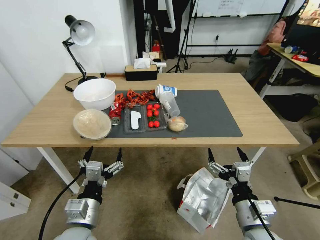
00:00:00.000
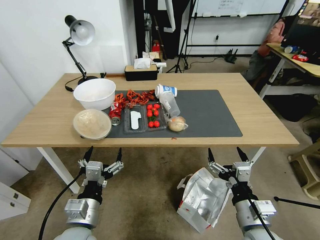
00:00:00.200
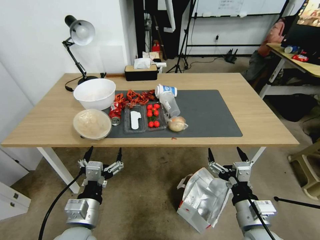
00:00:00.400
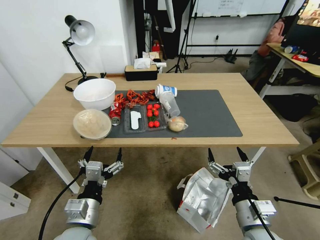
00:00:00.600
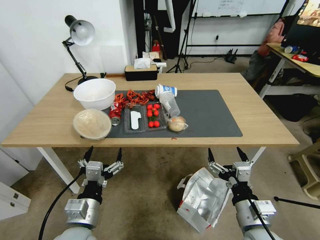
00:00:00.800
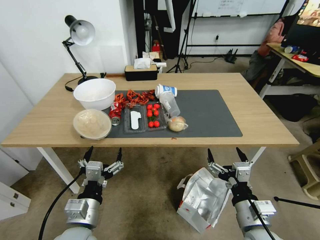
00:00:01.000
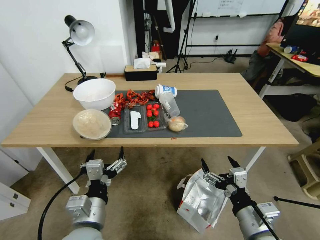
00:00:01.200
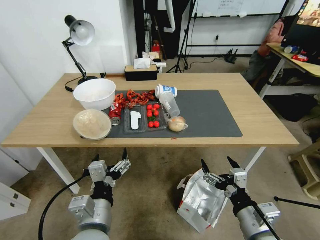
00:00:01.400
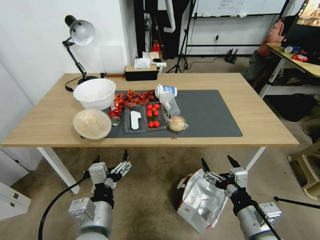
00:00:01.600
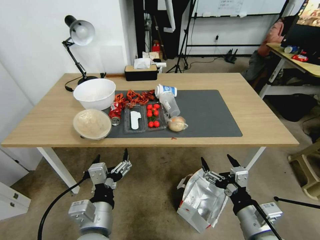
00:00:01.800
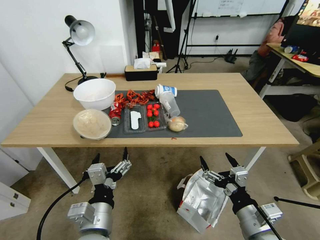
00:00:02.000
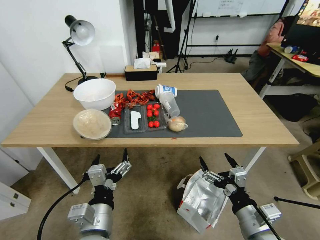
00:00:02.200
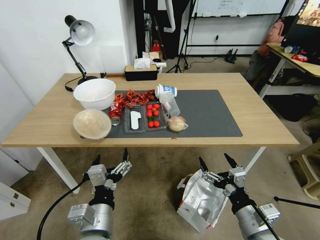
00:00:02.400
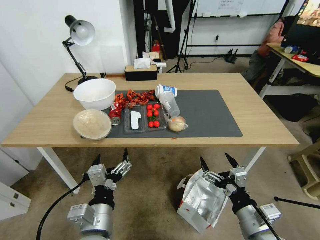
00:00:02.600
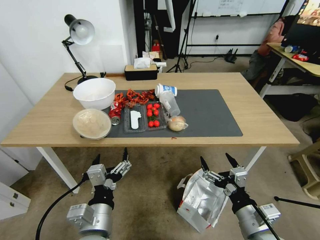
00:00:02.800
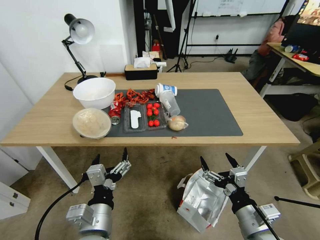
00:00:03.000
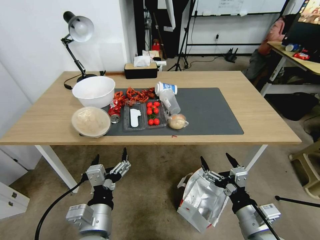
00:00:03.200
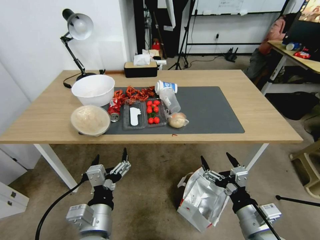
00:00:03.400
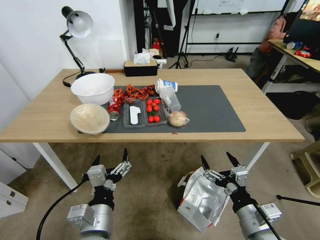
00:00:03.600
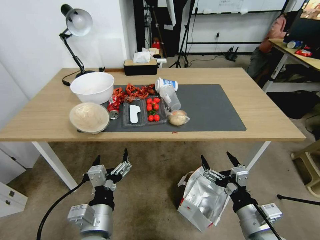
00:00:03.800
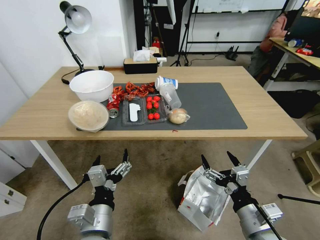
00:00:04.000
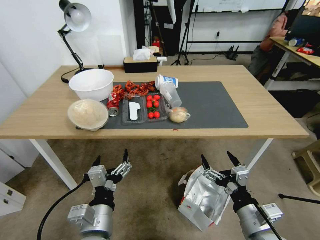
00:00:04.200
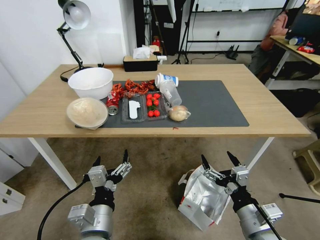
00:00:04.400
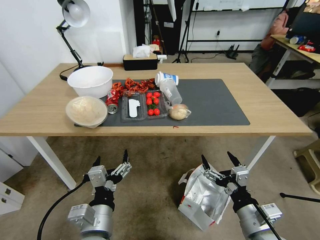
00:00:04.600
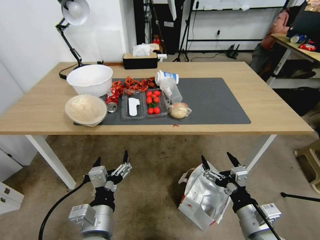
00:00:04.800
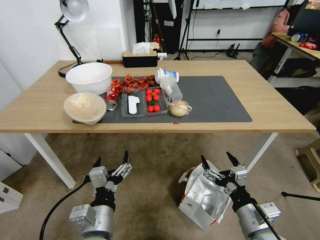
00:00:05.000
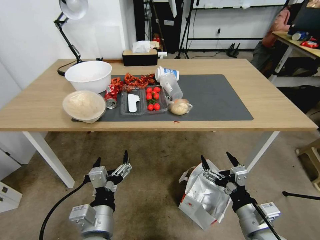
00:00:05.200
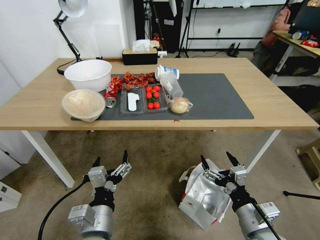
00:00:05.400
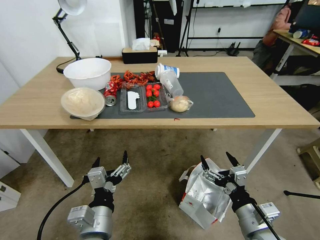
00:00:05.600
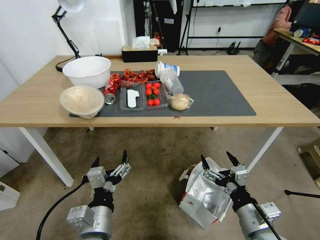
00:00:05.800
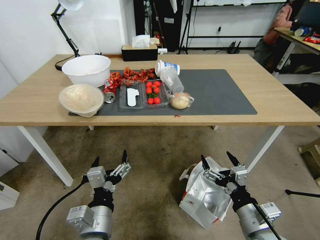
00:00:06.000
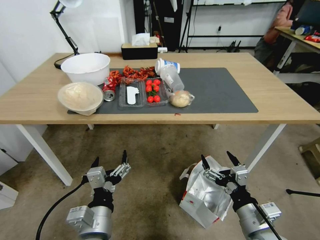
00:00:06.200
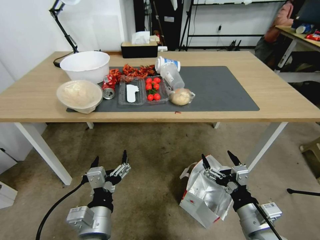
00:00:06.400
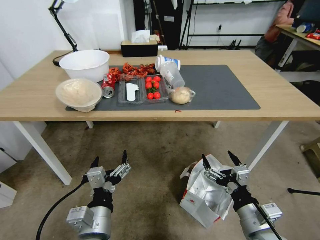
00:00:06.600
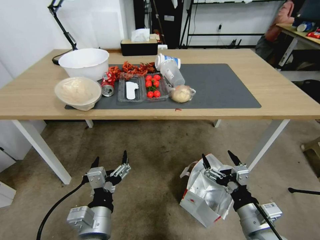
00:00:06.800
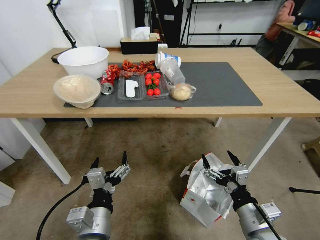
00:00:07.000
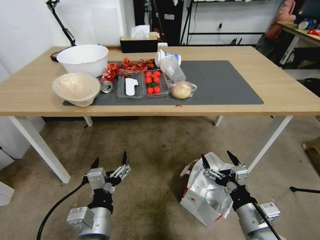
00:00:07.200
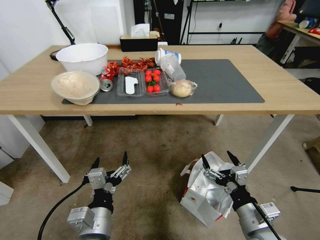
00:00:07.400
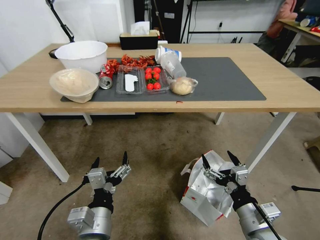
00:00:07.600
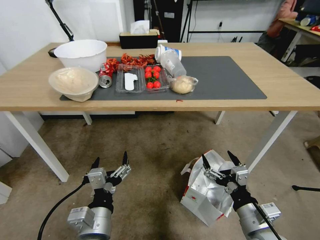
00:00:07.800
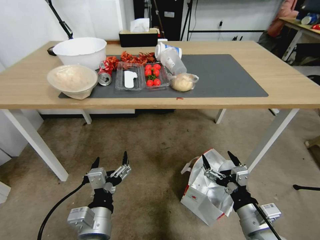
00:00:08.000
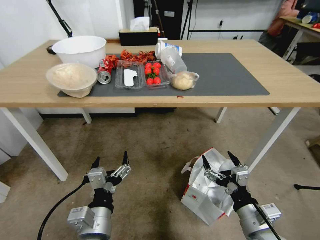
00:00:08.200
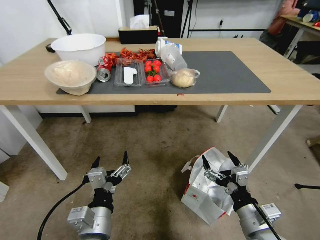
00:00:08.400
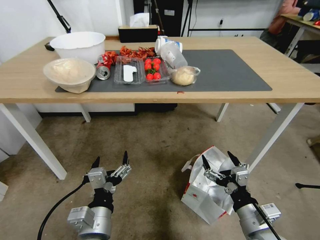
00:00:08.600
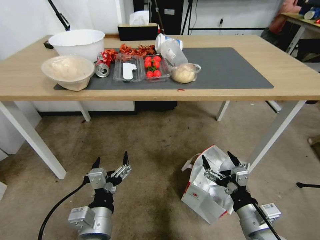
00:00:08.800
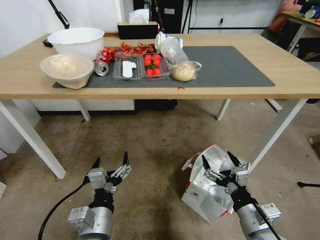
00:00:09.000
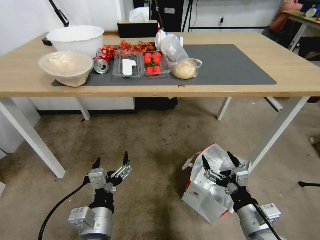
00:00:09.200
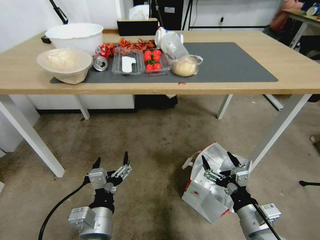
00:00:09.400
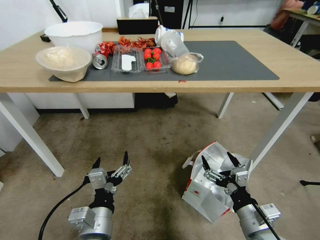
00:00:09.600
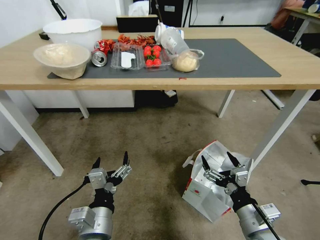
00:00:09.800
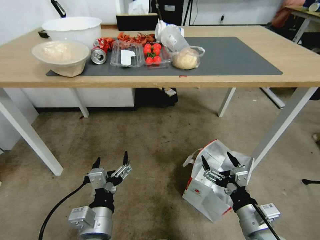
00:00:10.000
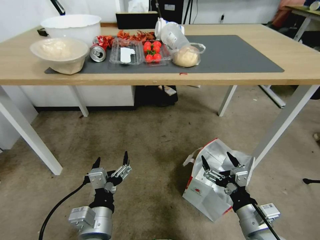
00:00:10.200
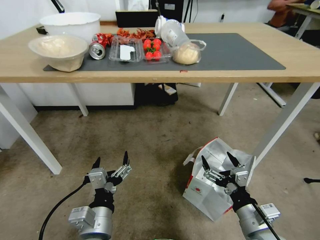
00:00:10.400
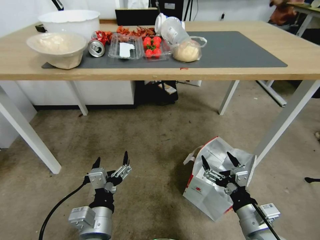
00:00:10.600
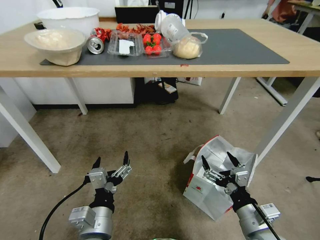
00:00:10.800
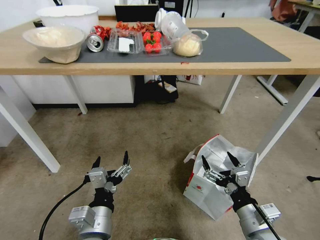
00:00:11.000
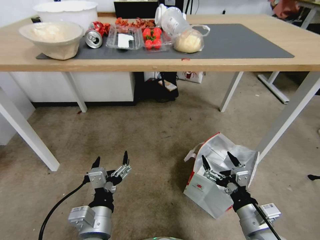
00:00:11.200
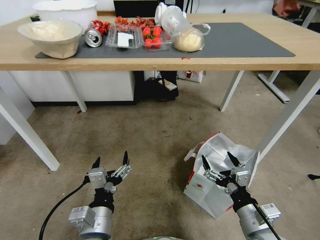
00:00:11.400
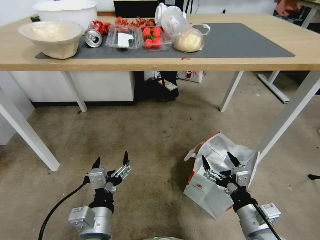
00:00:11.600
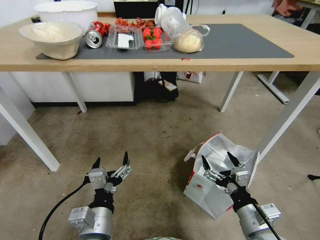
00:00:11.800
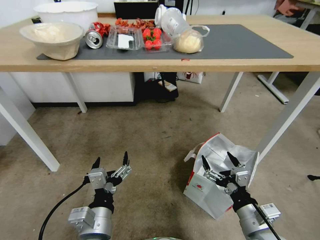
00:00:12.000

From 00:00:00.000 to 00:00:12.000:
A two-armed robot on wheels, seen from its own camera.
Task of the whole recording: Pick up the food delivery bag from the floor and place it on the table.
From 00:00:01.600 to 00:00:03.000: The grippers move only a little.

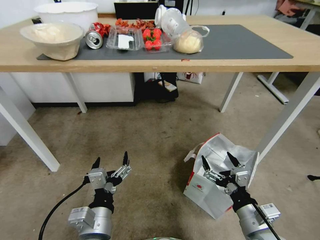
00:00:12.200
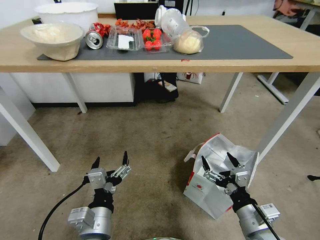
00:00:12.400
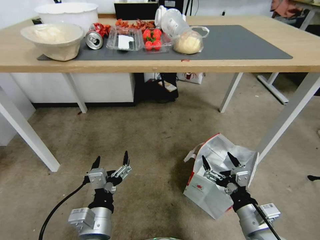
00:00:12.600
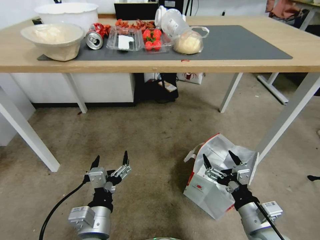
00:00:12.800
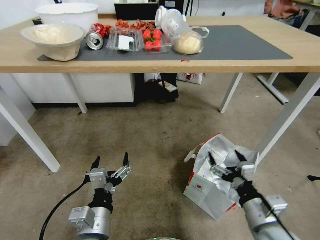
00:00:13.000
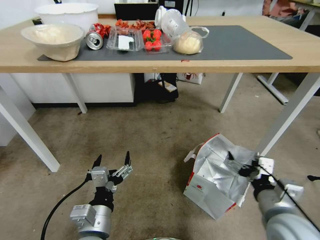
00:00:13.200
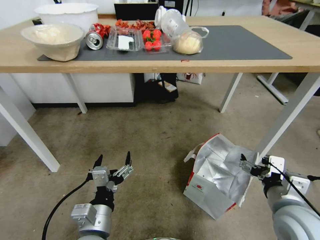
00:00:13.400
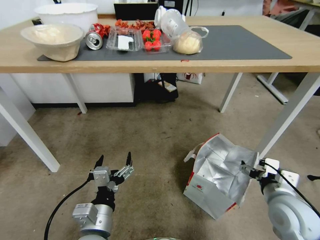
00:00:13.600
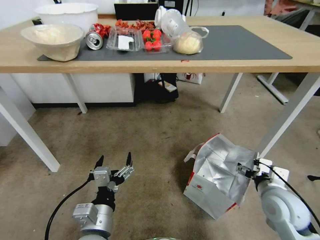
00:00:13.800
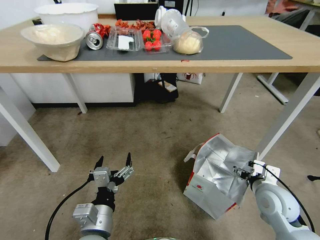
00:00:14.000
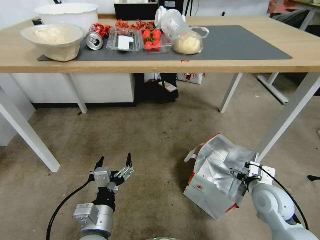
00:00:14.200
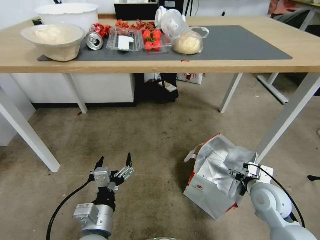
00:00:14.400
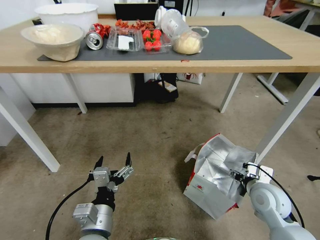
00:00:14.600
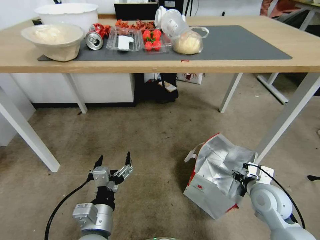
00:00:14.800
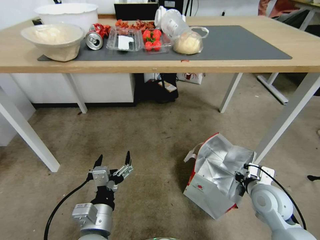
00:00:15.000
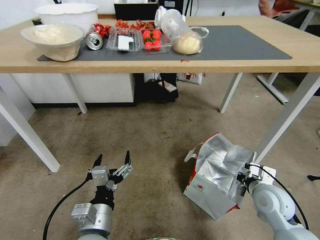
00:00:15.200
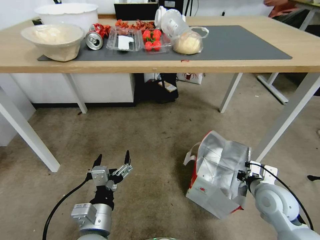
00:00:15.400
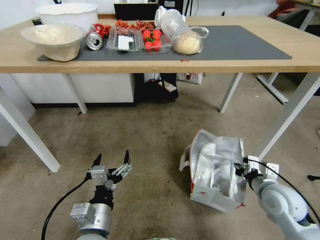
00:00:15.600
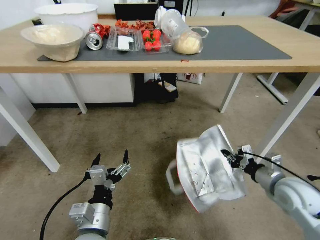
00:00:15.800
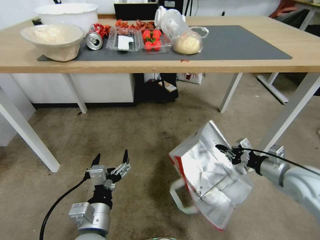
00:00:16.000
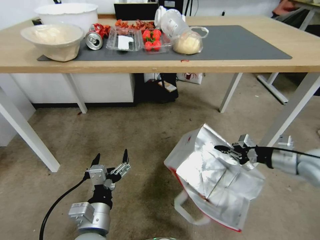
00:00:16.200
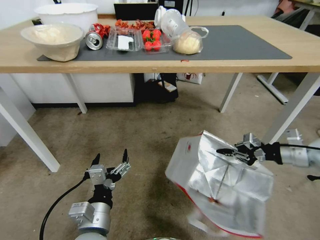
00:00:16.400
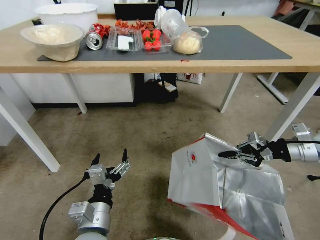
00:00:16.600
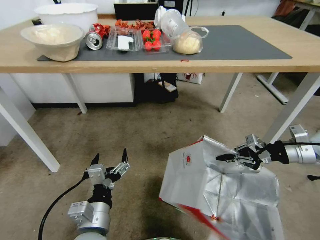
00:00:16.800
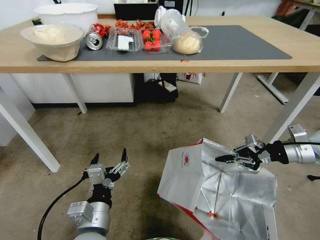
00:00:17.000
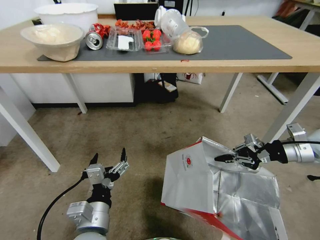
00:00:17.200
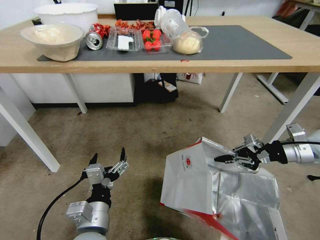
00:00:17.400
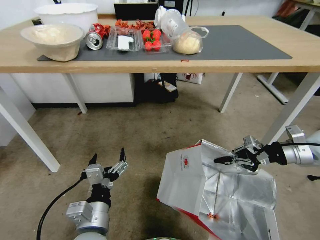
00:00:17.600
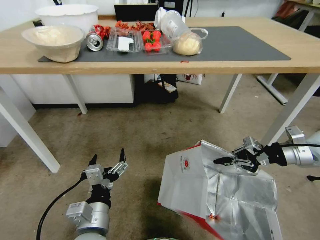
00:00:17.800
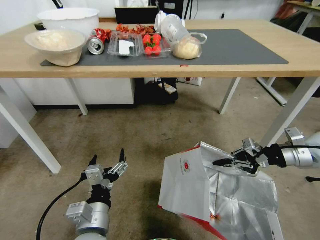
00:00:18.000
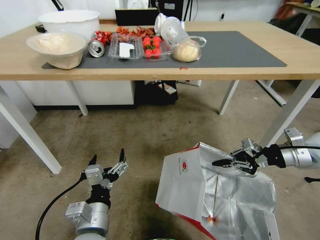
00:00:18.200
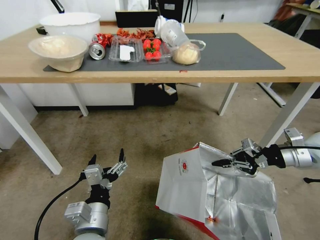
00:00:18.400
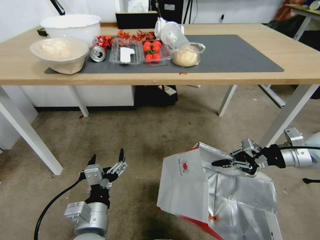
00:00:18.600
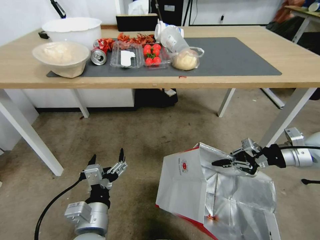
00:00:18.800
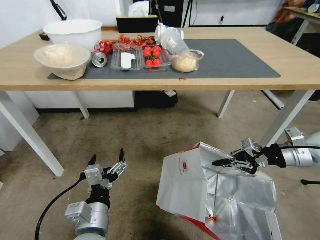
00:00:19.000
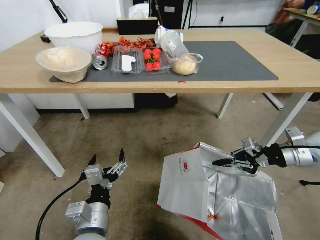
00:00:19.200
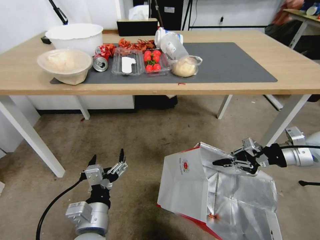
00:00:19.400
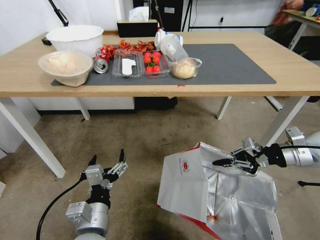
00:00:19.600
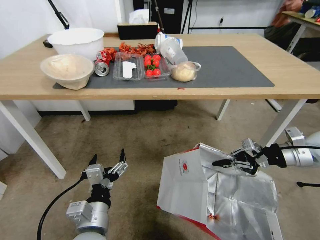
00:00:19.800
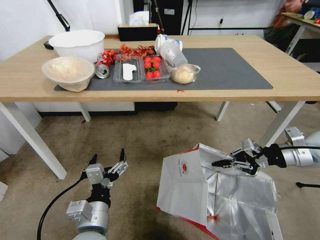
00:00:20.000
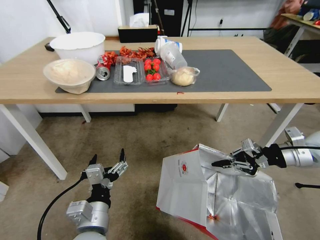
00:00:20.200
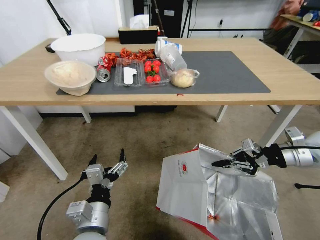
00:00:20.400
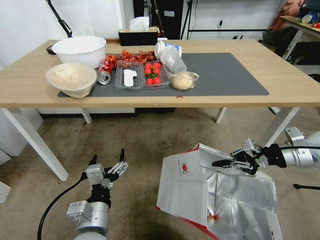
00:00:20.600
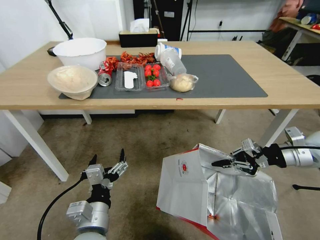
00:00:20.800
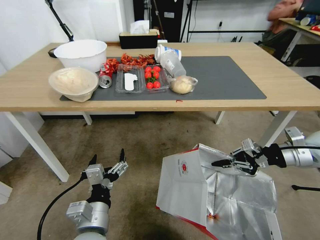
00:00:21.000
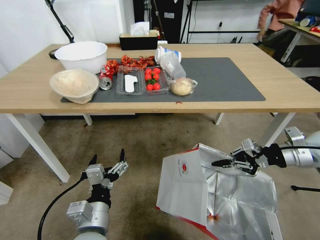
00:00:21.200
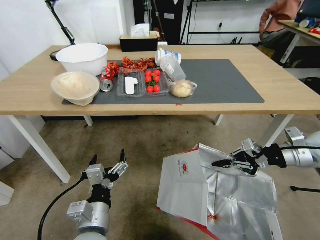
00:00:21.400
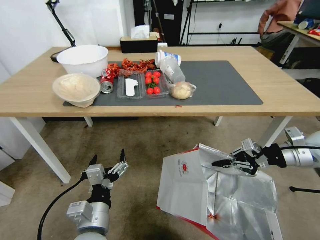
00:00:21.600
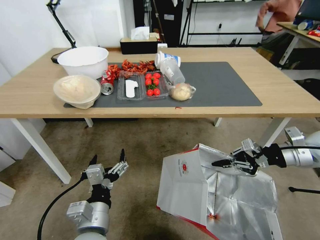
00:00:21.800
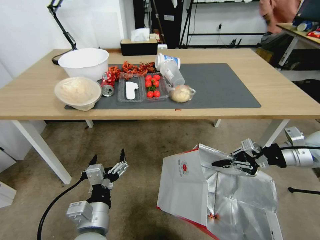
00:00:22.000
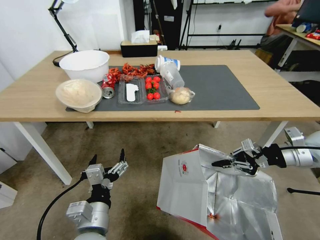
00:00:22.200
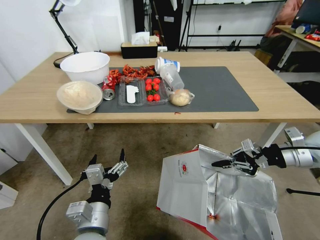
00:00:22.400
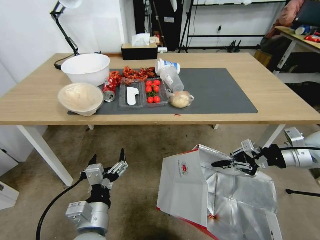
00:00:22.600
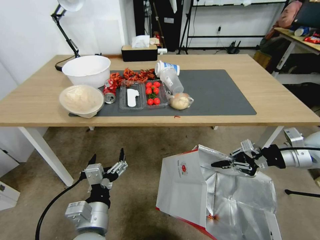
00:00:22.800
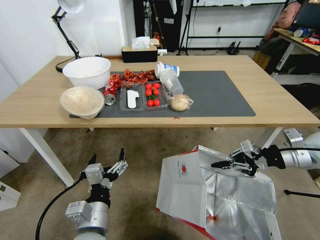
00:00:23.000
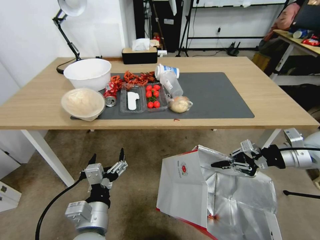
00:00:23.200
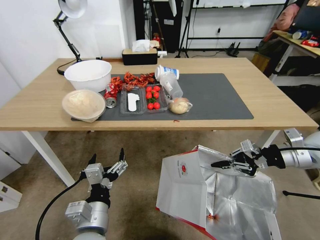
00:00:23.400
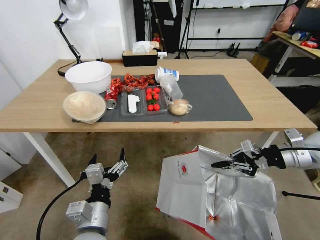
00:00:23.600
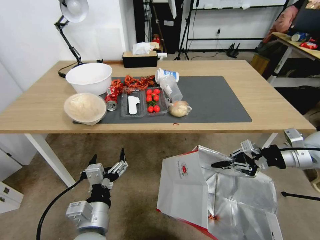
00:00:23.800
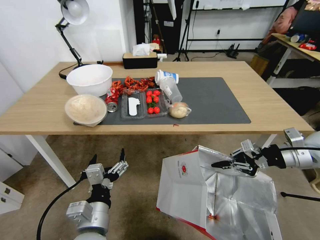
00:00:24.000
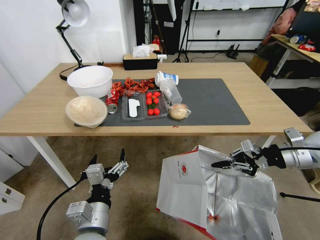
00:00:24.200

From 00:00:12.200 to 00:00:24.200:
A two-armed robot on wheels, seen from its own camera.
Task of the whole recording: Pick up the food delivery bag from the floor and place it on the table.
From 00:00:12.200 to 00:00:13.800: The right gripper goes about 10 cm forward and to the right.
From 00:00:13.800 to 00:00:15.200: The right gripper closes its fingers.
From 00:00:15.200 to 00:00:16.600: The right gripper goes approximately 25 cm upward, to the right and forward.
